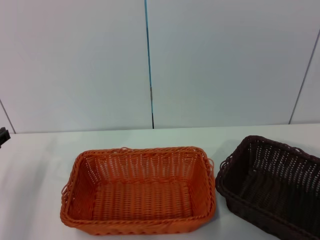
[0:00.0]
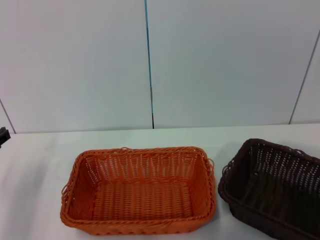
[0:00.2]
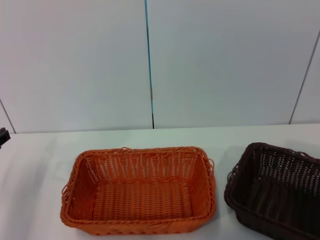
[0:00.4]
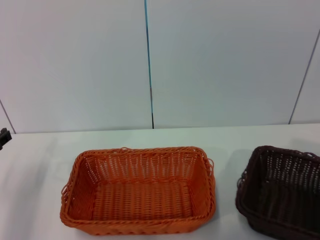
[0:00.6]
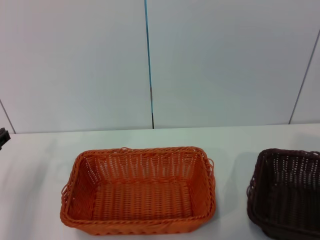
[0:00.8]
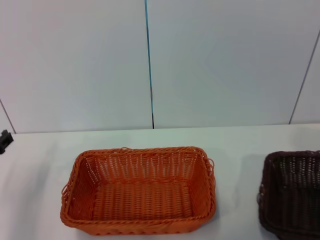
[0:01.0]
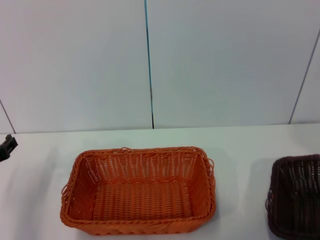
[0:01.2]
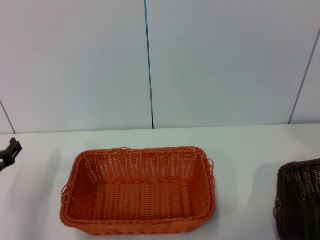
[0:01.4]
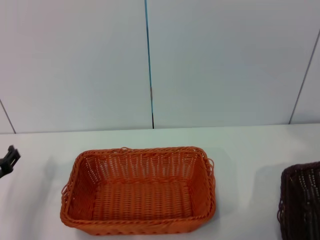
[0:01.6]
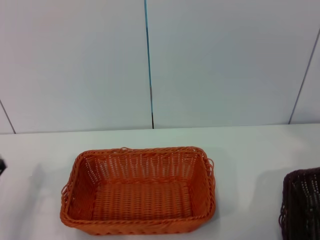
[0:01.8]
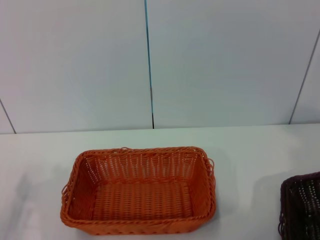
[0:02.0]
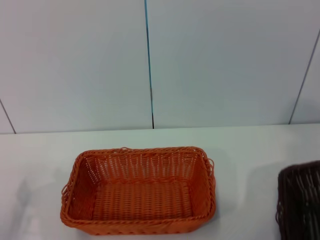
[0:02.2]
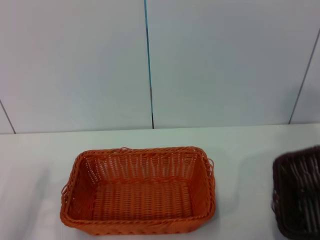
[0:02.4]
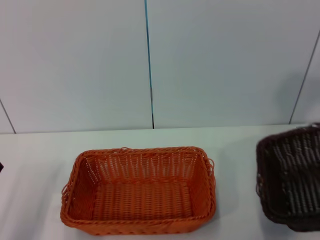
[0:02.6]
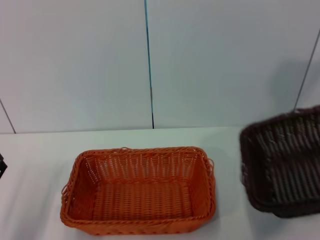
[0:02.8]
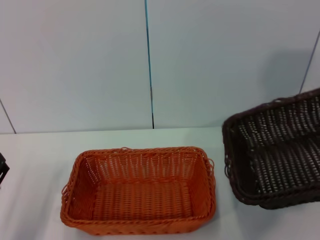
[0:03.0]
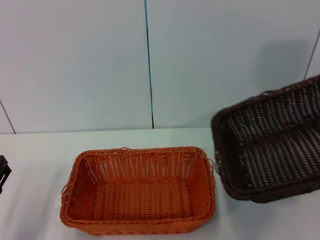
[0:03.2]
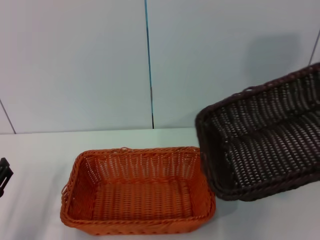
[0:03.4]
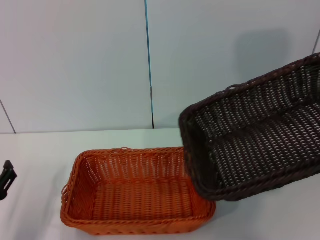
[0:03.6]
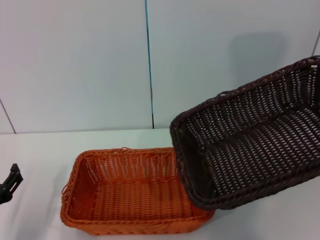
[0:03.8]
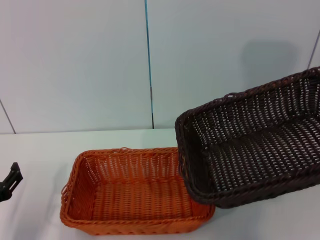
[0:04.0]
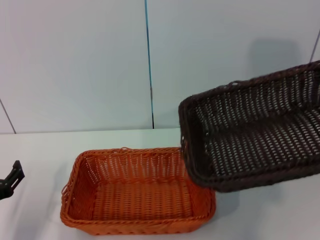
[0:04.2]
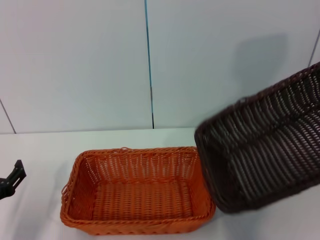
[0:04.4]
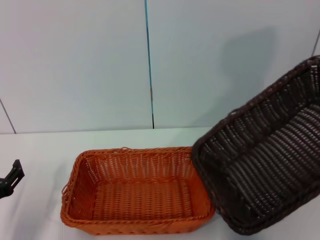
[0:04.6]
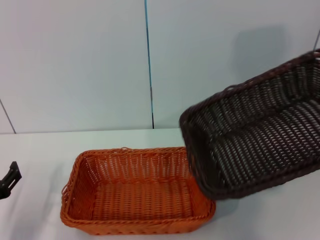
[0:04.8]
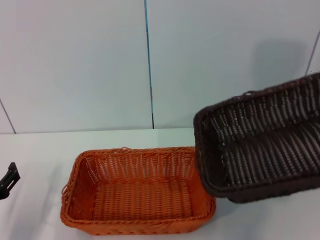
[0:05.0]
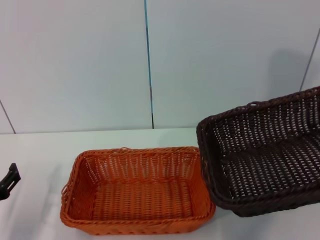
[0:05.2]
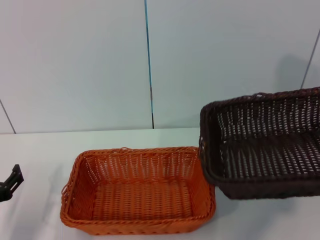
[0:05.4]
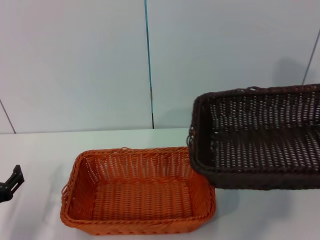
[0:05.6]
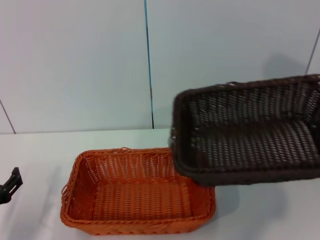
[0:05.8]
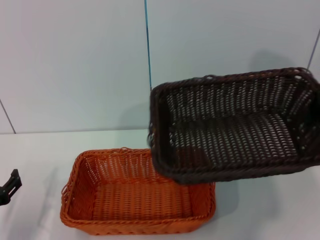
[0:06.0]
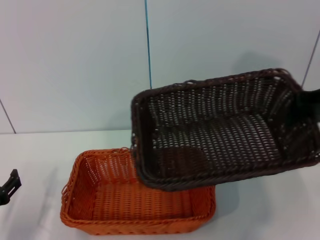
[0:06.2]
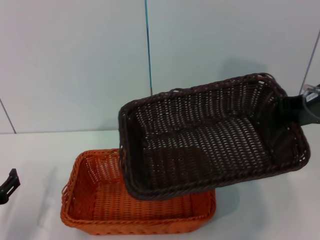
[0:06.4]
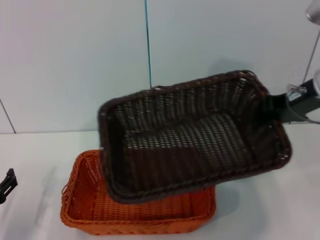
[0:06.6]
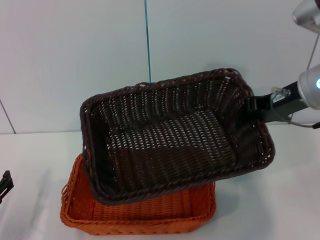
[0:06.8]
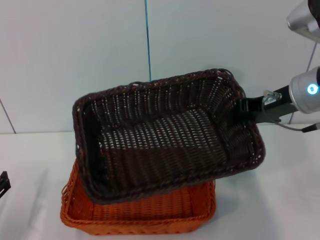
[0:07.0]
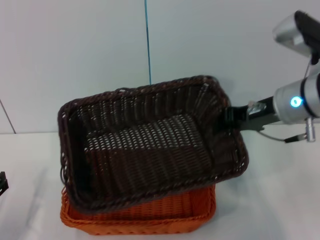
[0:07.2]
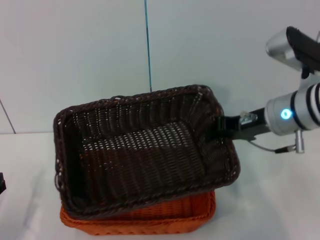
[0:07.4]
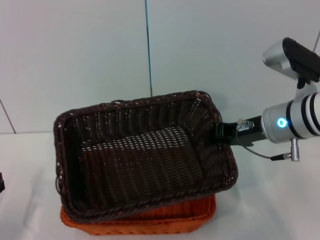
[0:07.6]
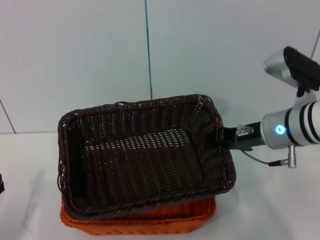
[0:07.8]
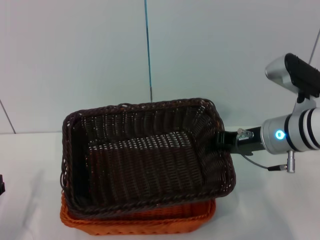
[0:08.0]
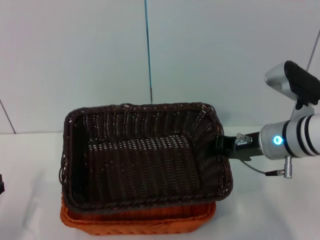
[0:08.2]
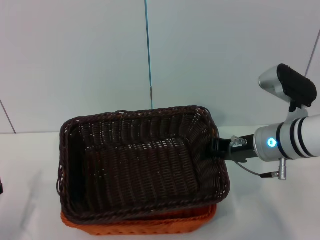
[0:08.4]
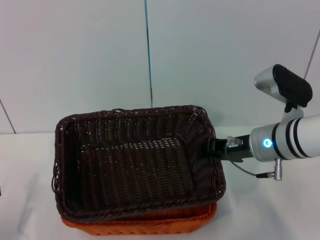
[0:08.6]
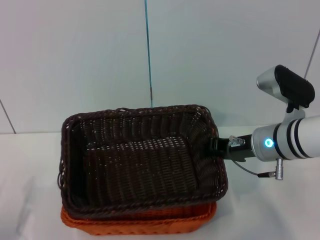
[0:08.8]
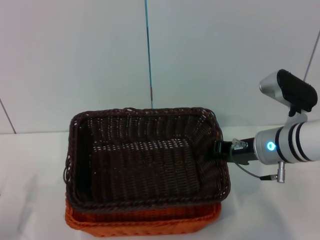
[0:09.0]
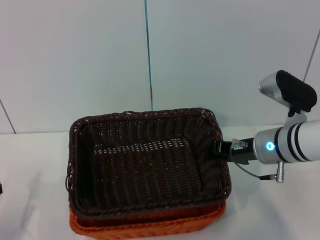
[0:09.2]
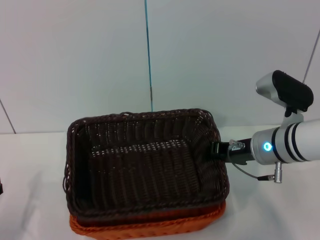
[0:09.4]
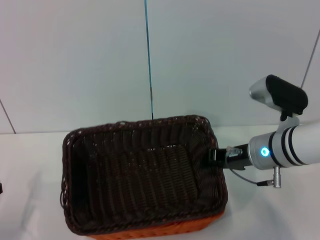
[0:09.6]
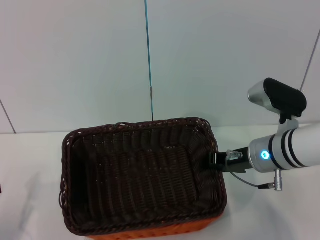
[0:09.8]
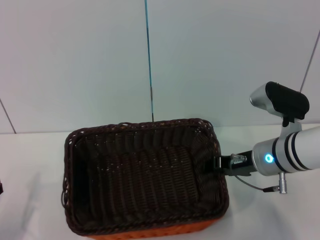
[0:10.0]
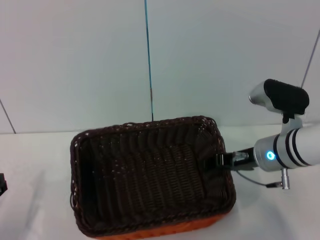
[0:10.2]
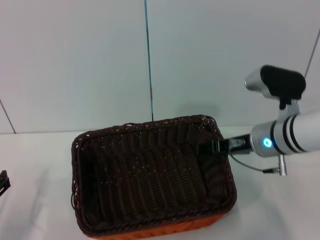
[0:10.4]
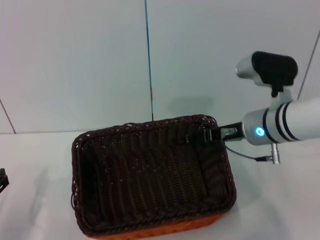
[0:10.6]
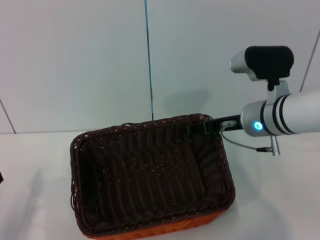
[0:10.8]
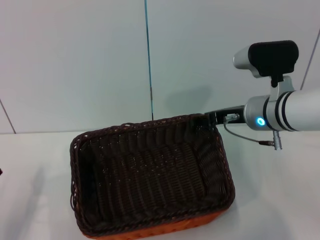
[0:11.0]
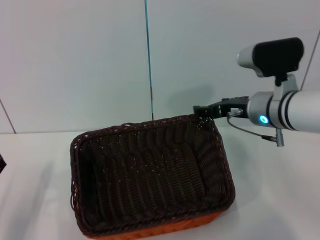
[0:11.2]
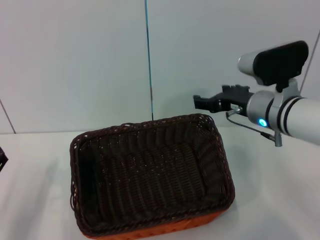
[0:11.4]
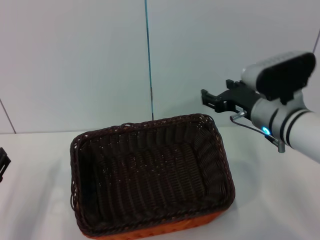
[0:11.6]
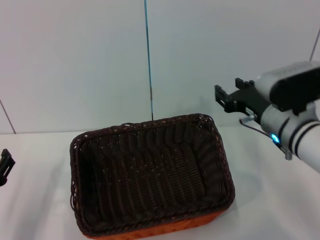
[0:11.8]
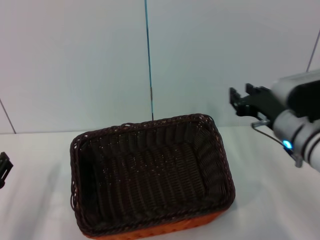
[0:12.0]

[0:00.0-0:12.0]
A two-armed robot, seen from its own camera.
Step, 0:01.2 to 0:10.6: Place the dark basket on the light basket with the right gripper.
0:00.0 to 0:01.6: The right gripper goes some 15 cm upward and to the right. The left gripper ends up approximately 5 cm from where it was.
0:01.6 to 0:03.0: The left gripper goes some 5 cm backward; the right gripper goes roughly 15 cm upward, to the left and forward.
0:03.0 to 0:04.4: The right gripper shifts some 5 cm to the left.
0:04.4 to 0:06.0: The right gripper goes to the right and returns, approximately 5 cm each way.
0:06.0 to 0:07.6: The right gripper heads to the left and downward, covering some 15 cm.
0:07.6 to 0:09.0: The right gripper goes about 5 cm downward.
0:09.0 to 0:10.4: The right gripper opens its fingers.
0:10.4 to 0:12.0: The right gripper opens, then closes once more.

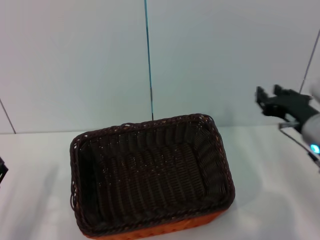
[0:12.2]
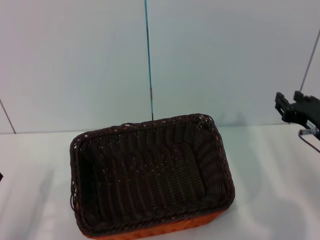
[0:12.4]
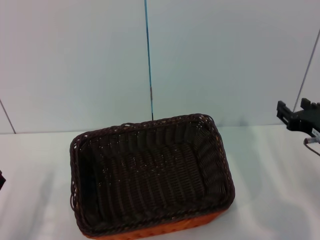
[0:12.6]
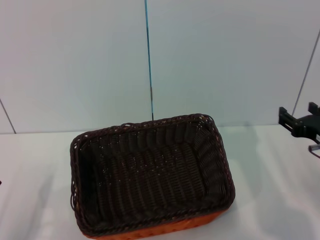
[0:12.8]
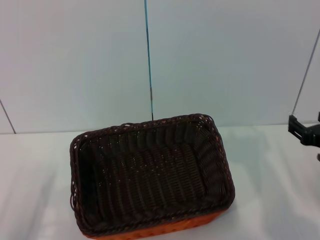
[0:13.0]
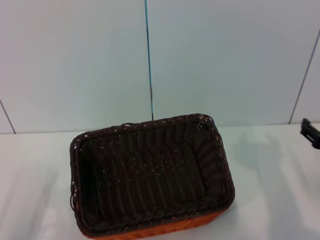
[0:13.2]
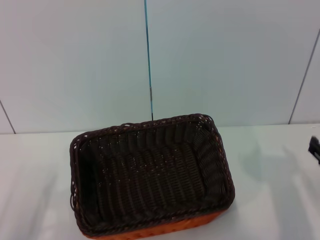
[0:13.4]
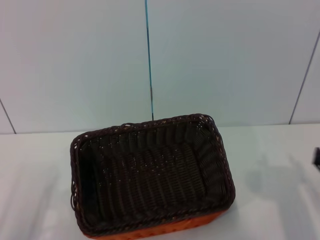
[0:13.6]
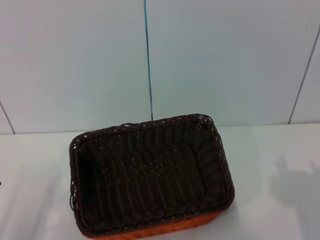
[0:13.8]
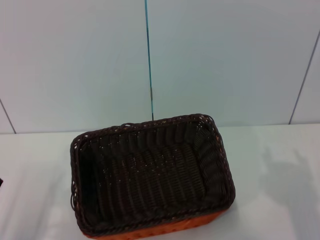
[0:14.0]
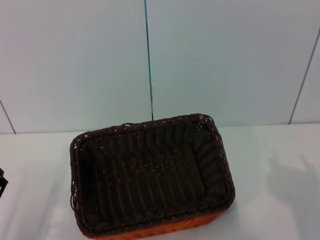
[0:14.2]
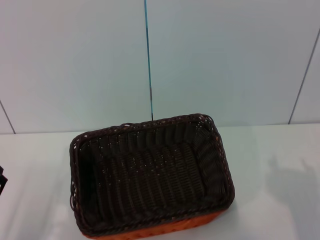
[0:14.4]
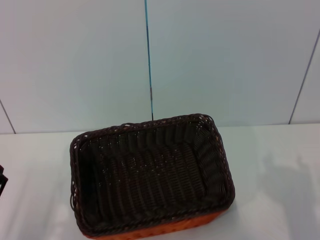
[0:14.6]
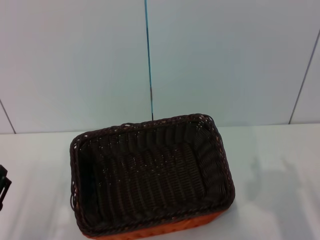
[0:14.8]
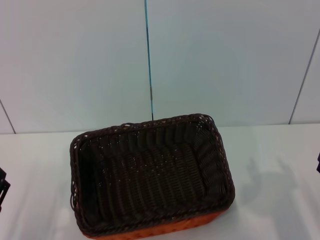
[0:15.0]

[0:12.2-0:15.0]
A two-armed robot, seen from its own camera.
0:12.2 to 0:13.6: The right gripper heads backward, downward and to the right, covering roughly 15 cm, and opens up.
